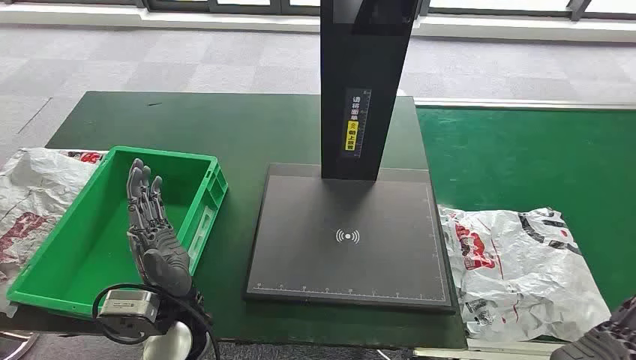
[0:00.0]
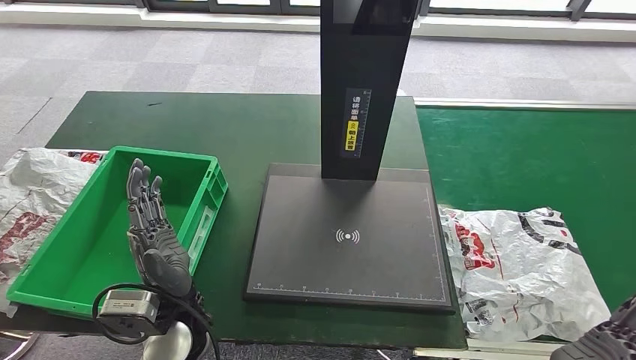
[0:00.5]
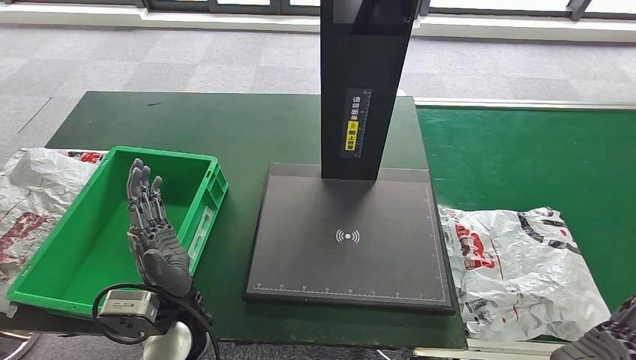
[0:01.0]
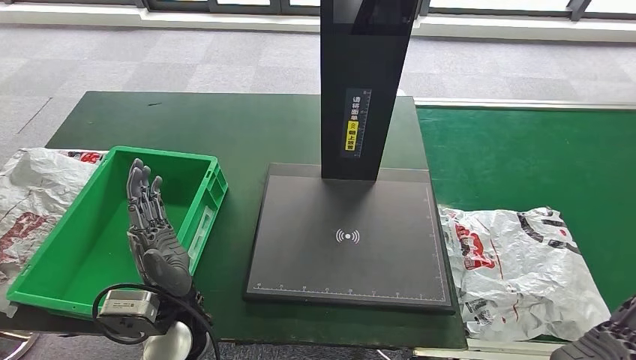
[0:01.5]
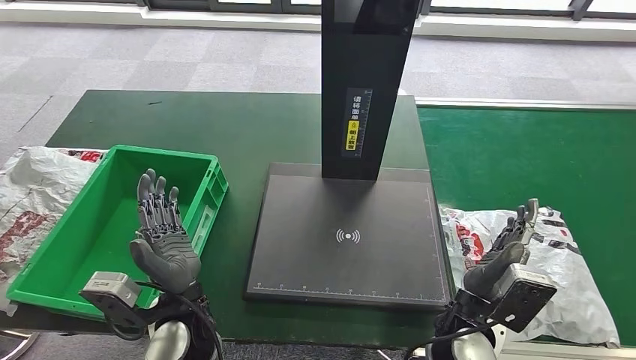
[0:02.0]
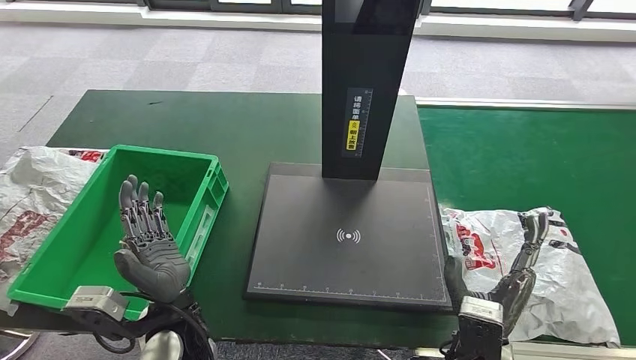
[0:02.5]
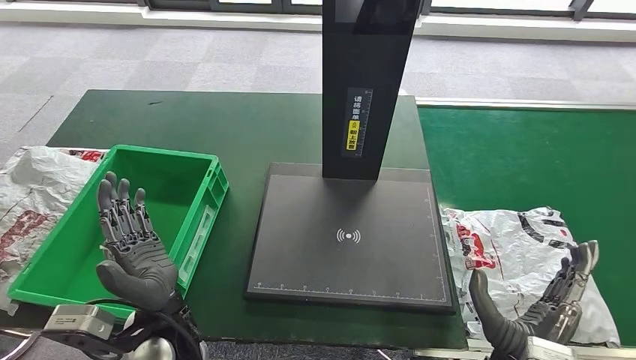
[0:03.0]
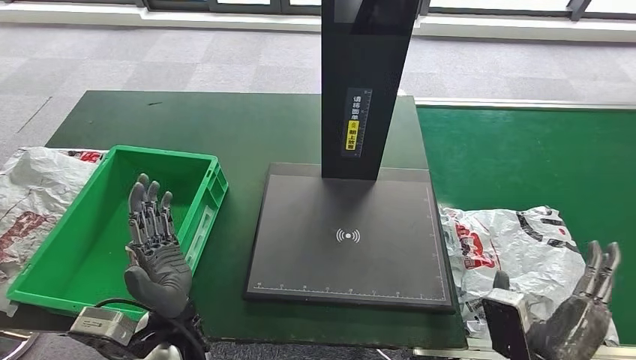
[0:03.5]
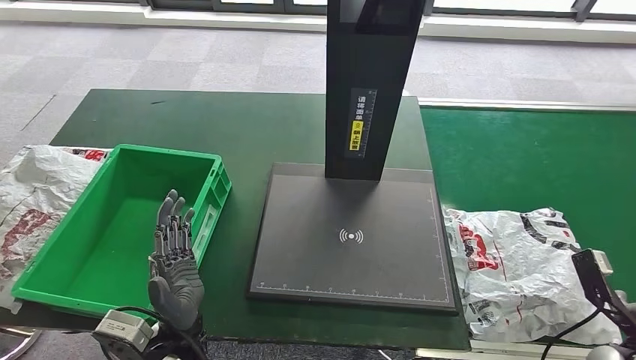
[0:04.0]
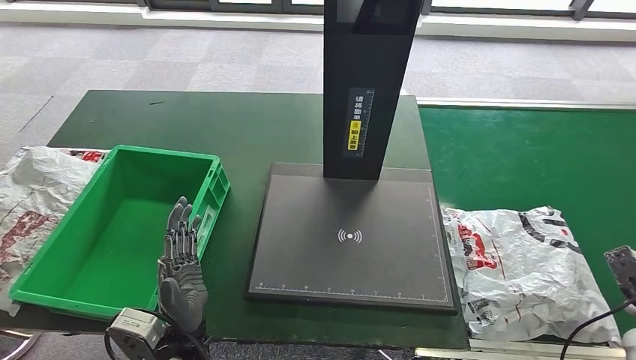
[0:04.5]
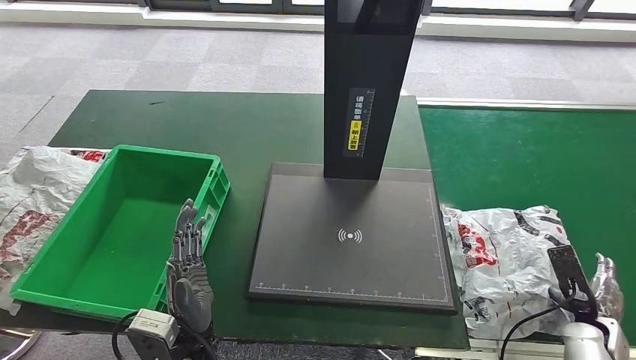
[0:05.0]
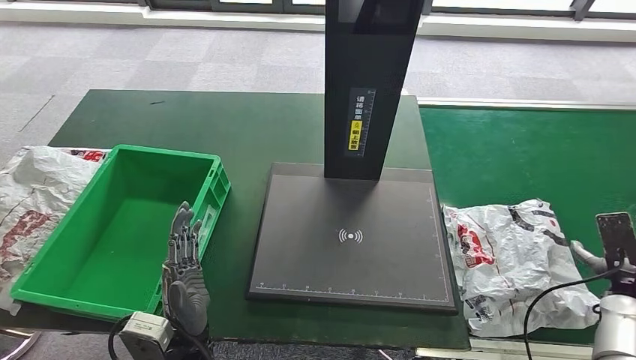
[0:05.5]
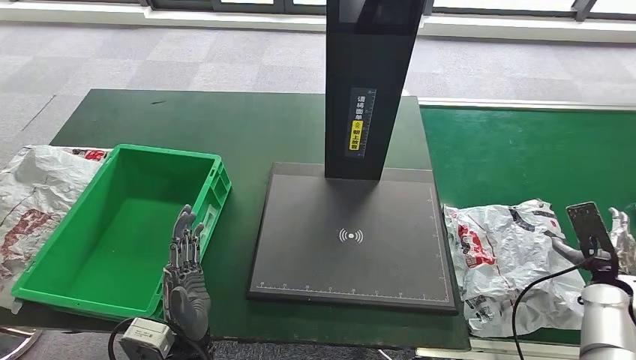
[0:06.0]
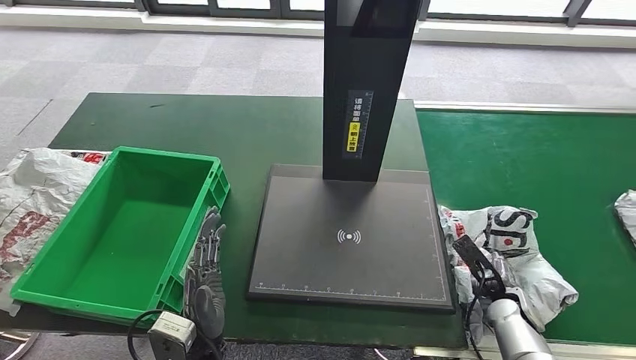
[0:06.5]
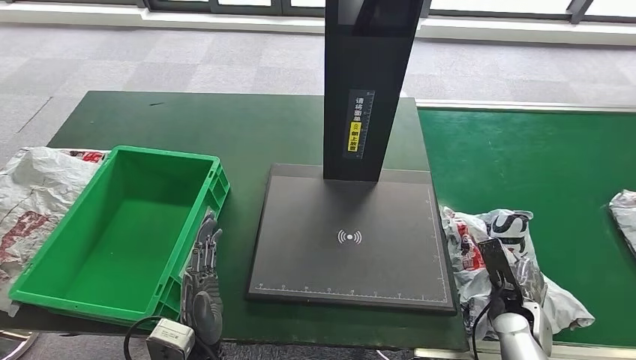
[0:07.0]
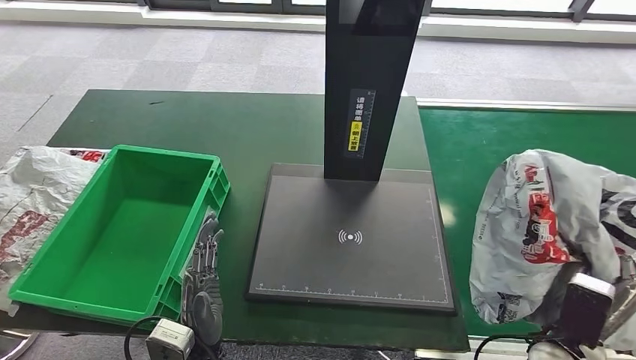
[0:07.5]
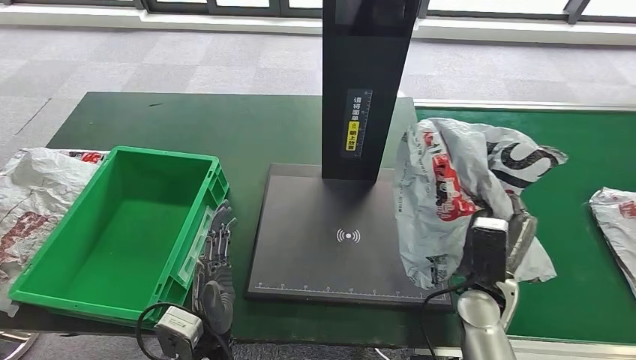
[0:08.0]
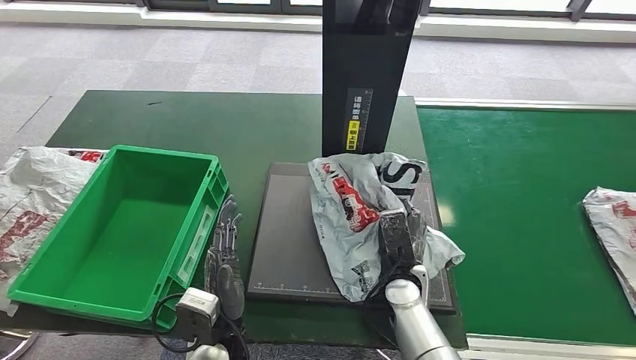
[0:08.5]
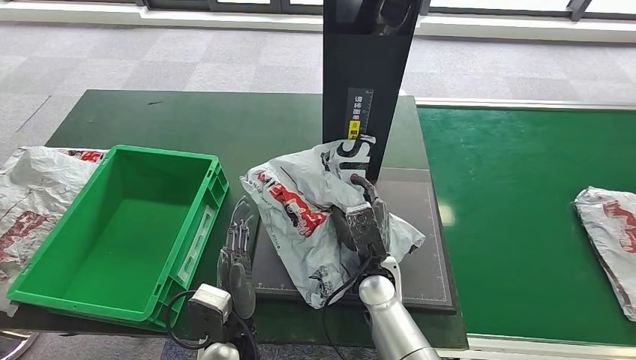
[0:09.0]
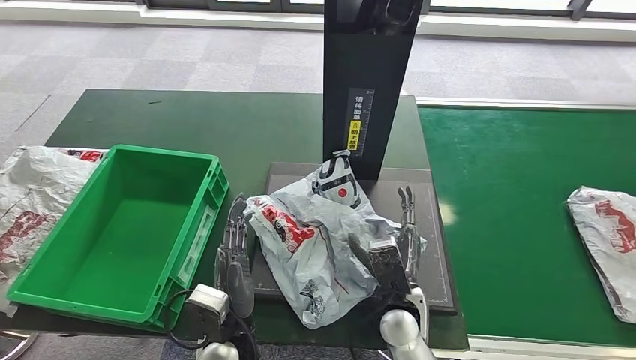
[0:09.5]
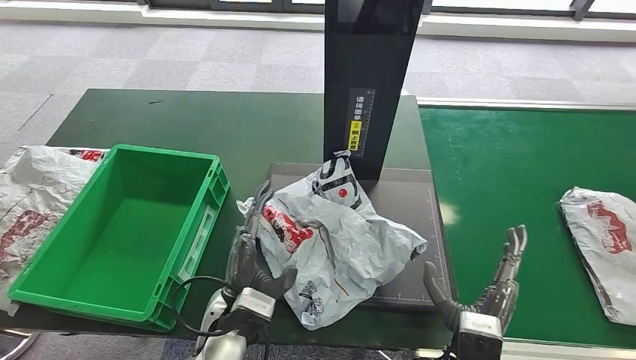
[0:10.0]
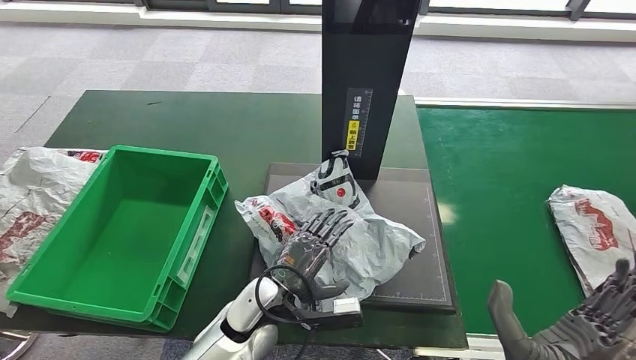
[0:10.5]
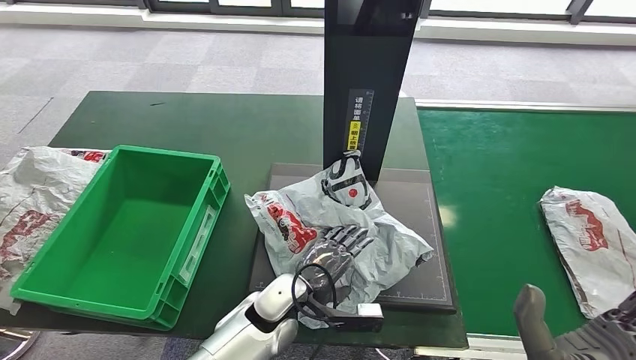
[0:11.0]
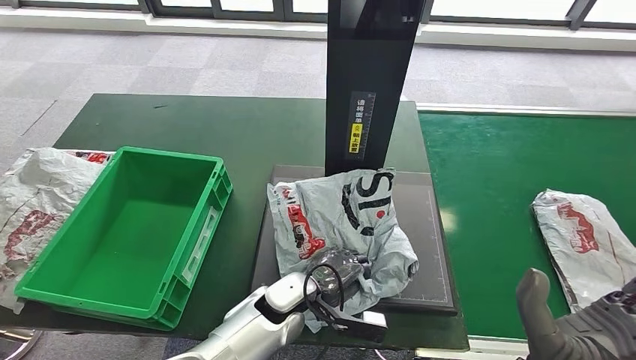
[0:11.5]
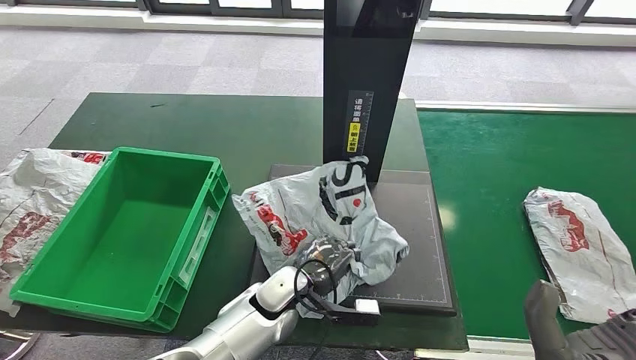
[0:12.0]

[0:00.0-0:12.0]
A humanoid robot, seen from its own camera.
Step, 0:00.0 to 0:08.0: Take the parcel off the conveyor belt.
Step, 0:08.5 to 0:09.5: Place the parcel onto the inbound machine.
0:02.0 to 0:04.0: The right hand heads to the right, covering approximately 30 cm.
0:04.0 to 0:06.0: The right hand heads forward, covering approximately 10 cm.

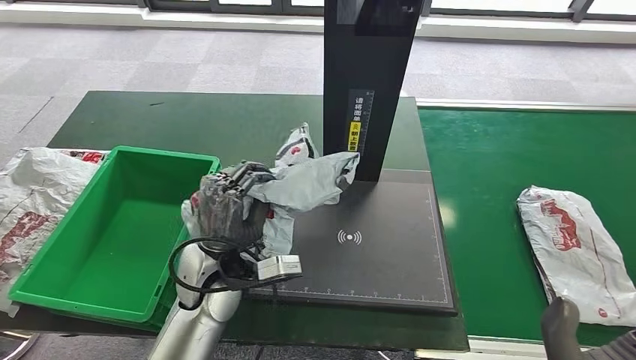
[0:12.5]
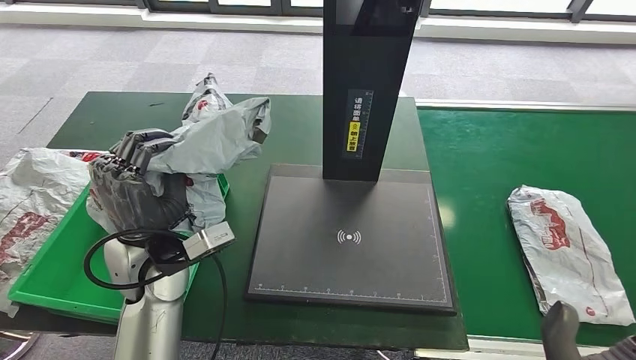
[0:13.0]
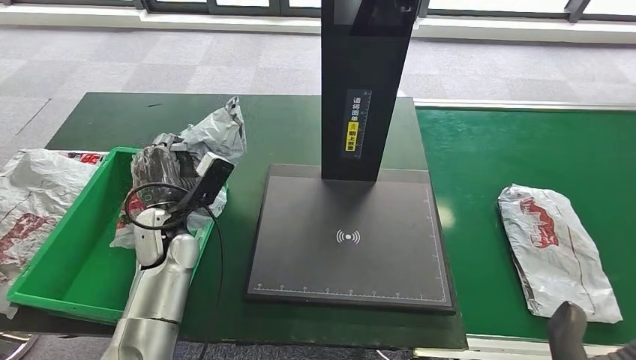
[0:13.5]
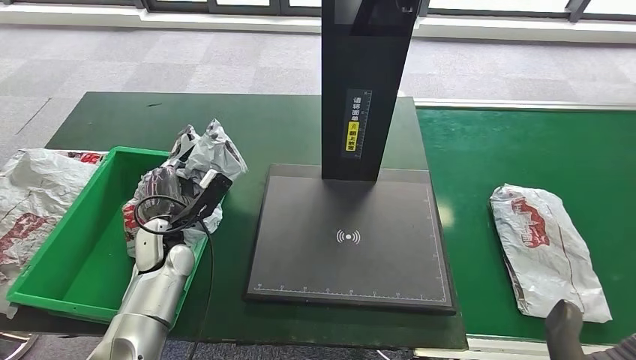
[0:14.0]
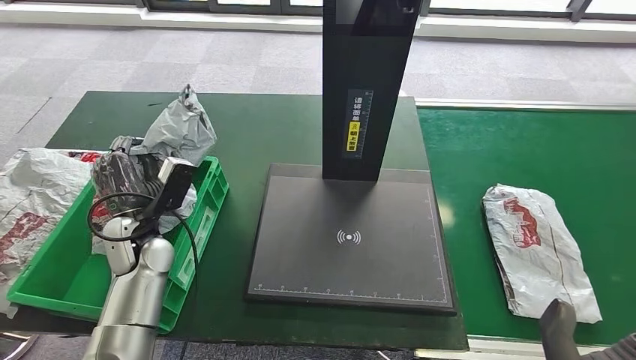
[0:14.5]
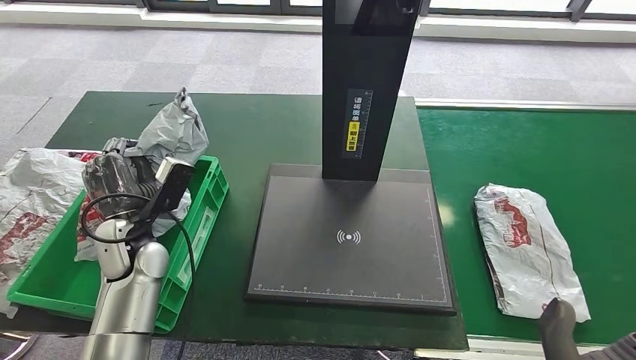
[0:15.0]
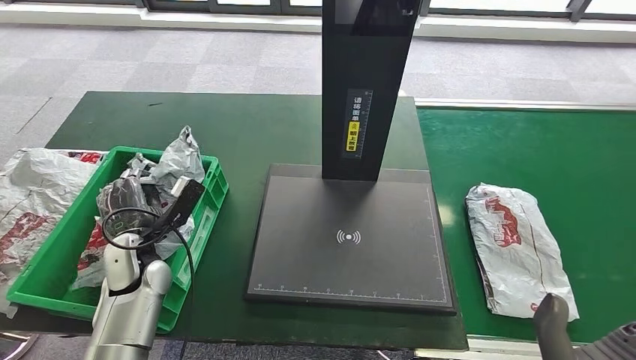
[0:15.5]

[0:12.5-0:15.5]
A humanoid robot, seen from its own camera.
Step, 0:14.5 to 0:15.5: Put the parcel inside the courier box.
0:14.0 to 0:15.5: The left hand changes place by roughly 5 cm.

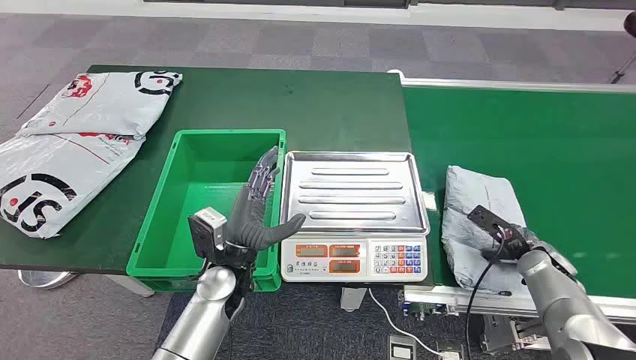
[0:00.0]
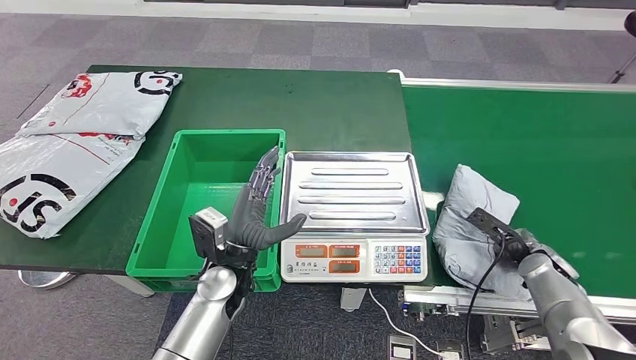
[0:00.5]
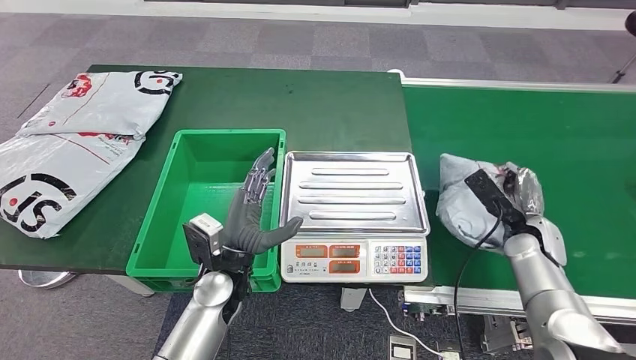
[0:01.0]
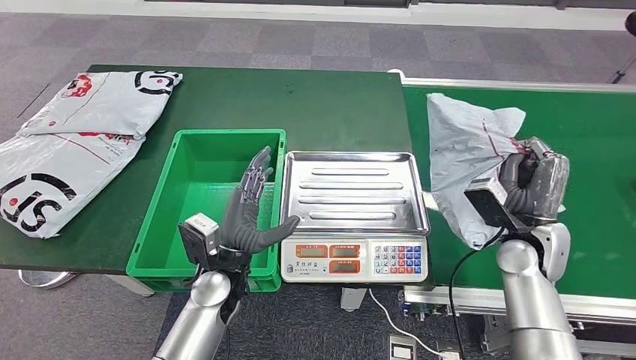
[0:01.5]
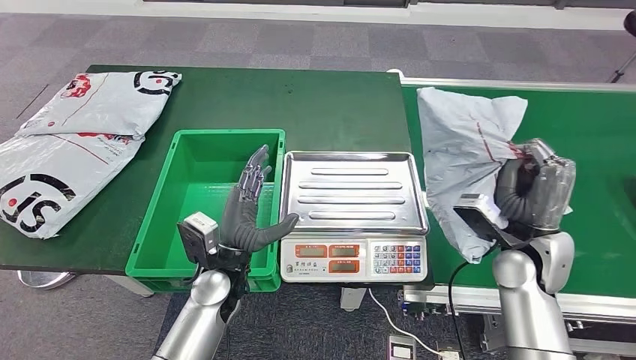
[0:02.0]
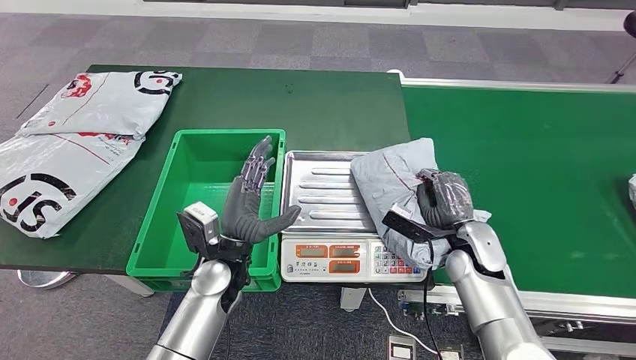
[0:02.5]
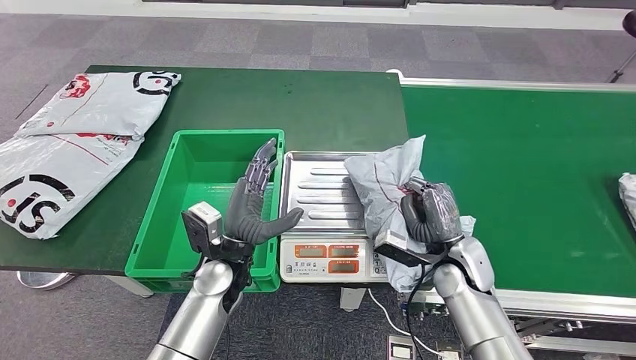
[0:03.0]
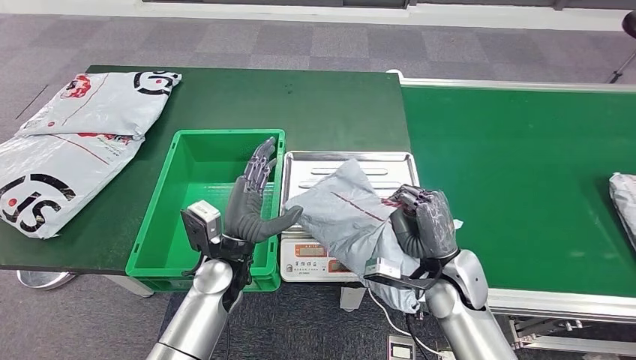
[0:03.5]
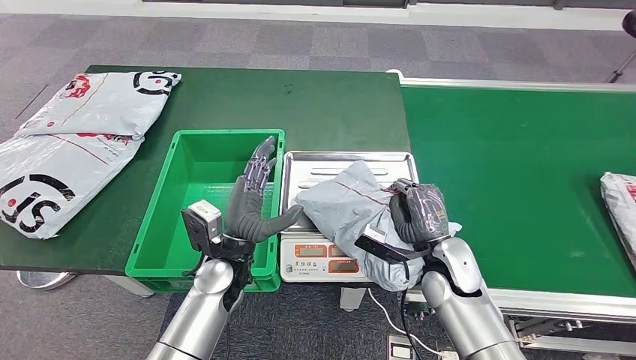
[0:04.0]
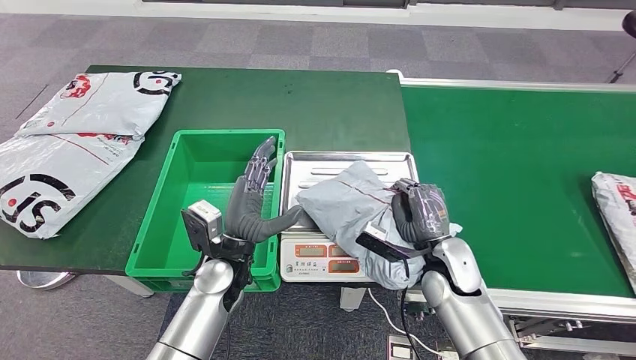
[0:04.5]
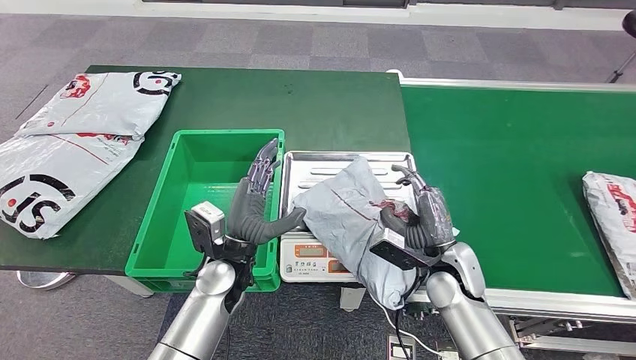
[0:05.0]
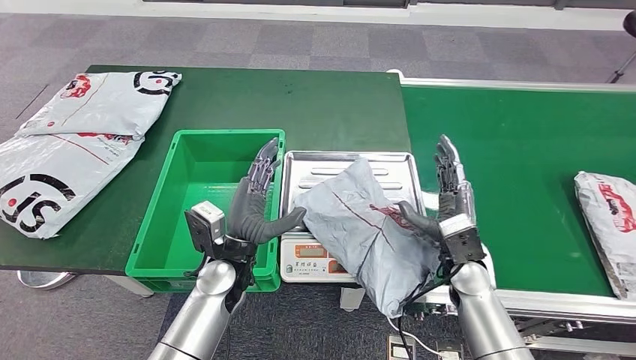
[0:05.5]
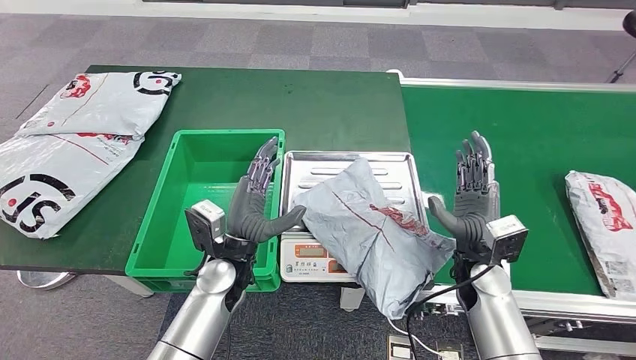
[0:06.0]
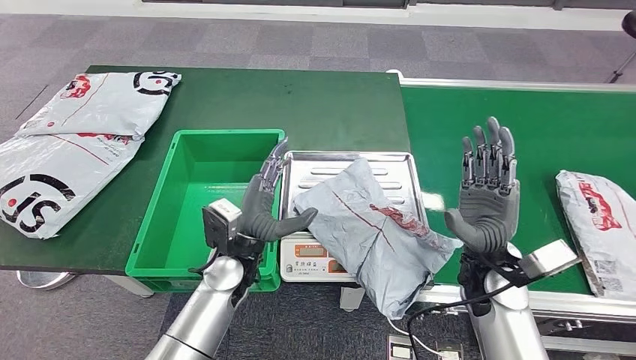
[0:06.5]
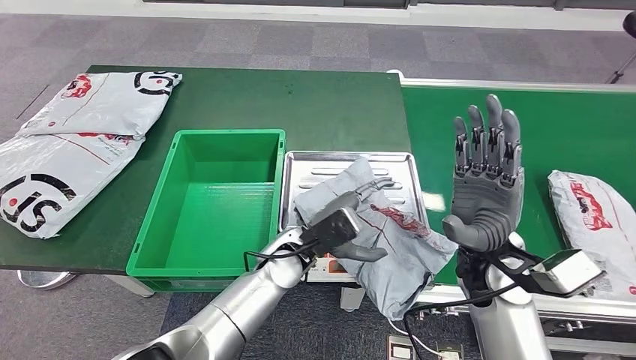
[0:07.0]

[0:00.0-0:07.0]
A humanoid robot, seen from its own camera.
Step, 0:00.0 to 0:01.0: Take the parcel off the conveyor belt.
Step, 0:01.5 to 0:05.5: Place the parcel onto the inbound machine.
